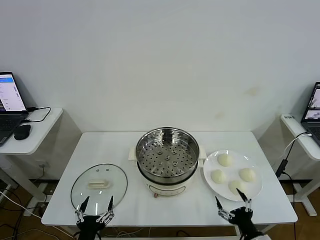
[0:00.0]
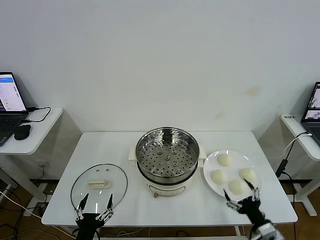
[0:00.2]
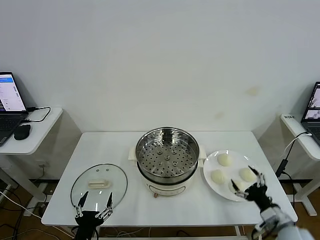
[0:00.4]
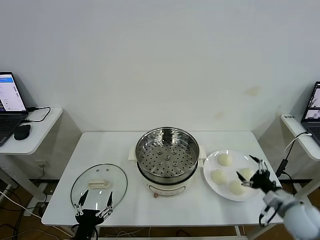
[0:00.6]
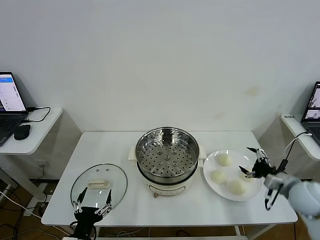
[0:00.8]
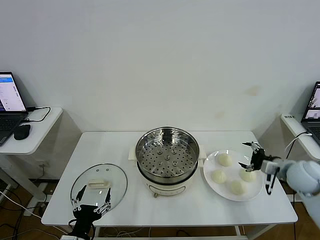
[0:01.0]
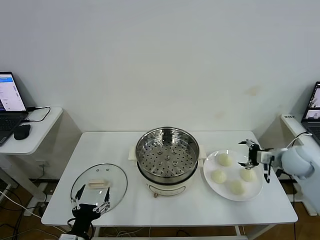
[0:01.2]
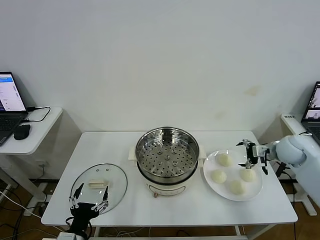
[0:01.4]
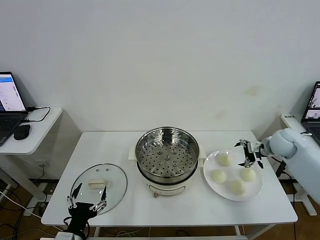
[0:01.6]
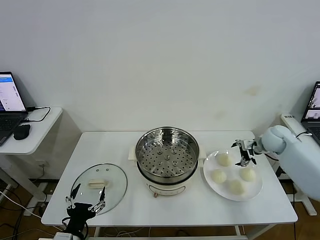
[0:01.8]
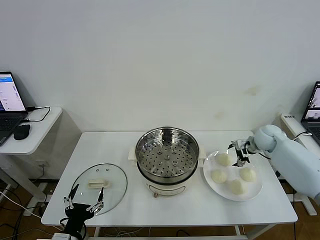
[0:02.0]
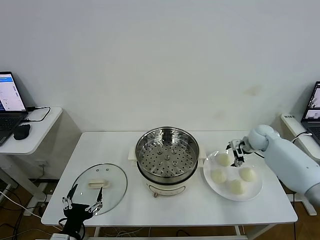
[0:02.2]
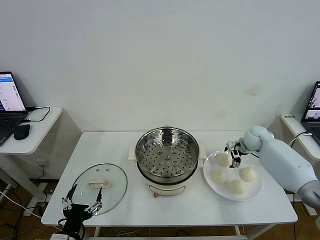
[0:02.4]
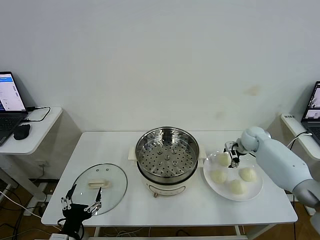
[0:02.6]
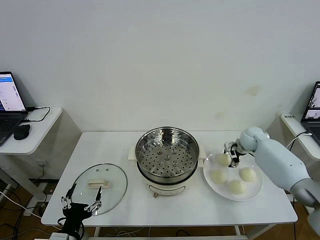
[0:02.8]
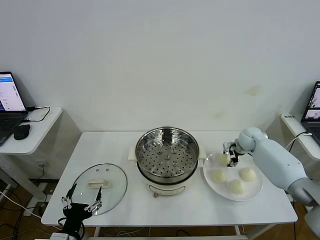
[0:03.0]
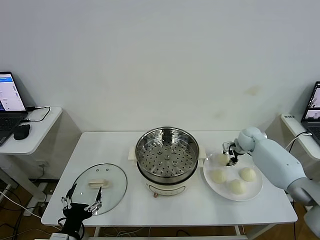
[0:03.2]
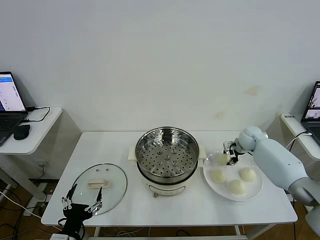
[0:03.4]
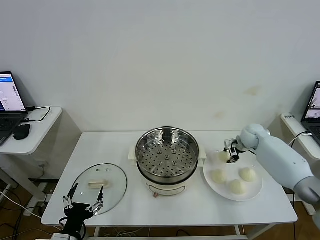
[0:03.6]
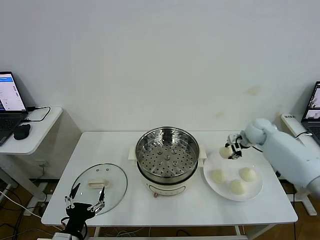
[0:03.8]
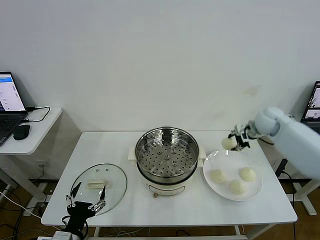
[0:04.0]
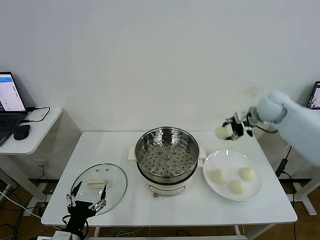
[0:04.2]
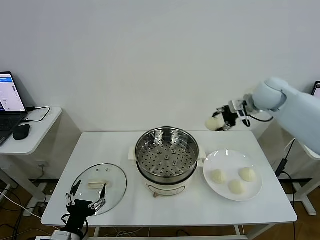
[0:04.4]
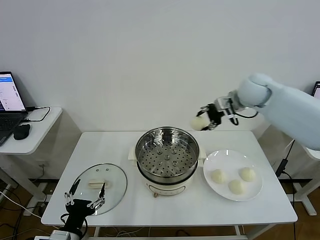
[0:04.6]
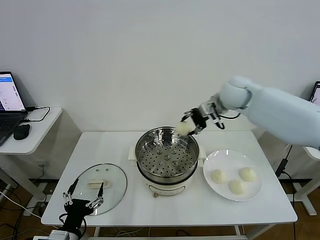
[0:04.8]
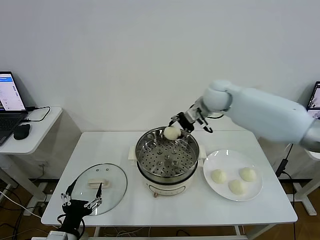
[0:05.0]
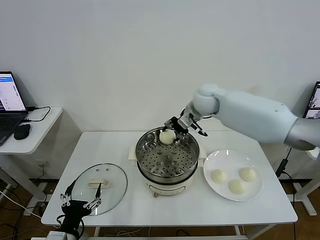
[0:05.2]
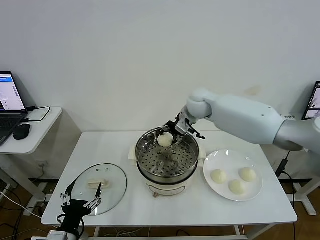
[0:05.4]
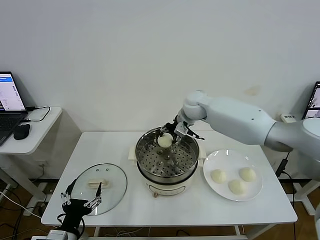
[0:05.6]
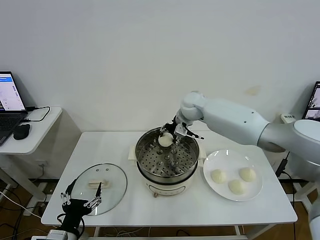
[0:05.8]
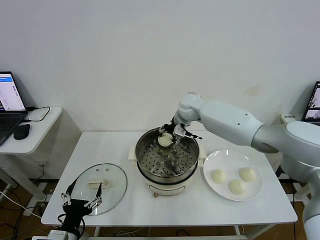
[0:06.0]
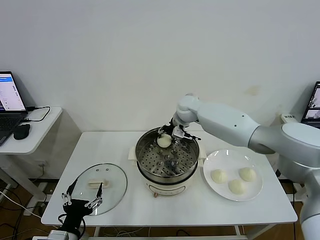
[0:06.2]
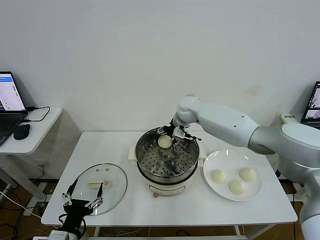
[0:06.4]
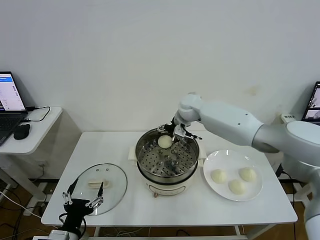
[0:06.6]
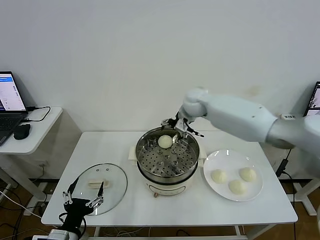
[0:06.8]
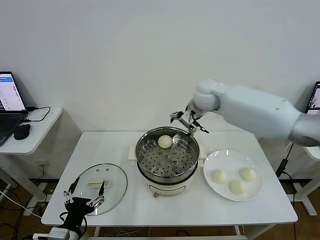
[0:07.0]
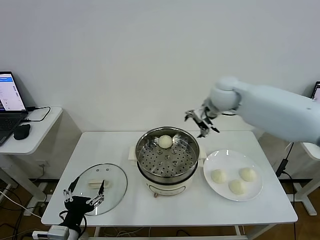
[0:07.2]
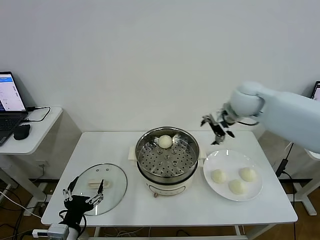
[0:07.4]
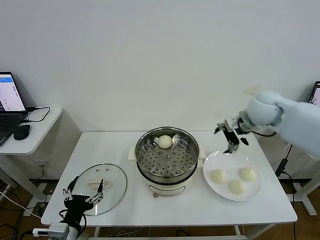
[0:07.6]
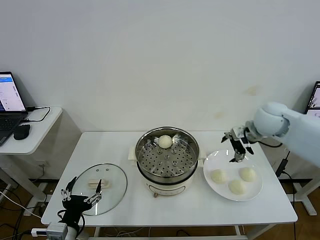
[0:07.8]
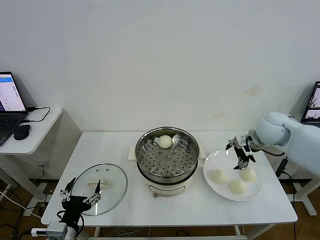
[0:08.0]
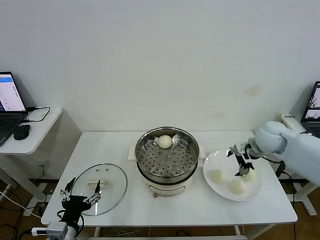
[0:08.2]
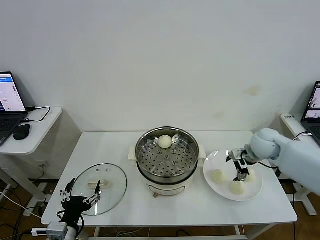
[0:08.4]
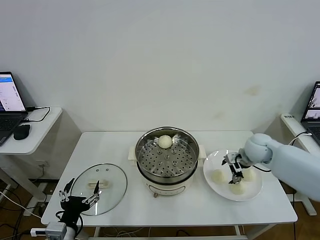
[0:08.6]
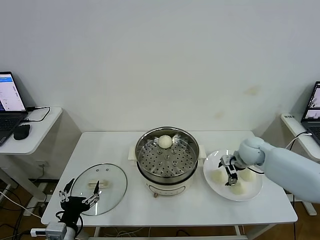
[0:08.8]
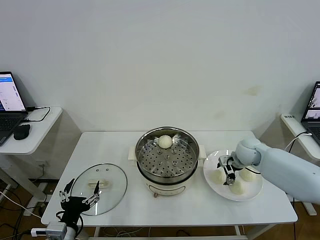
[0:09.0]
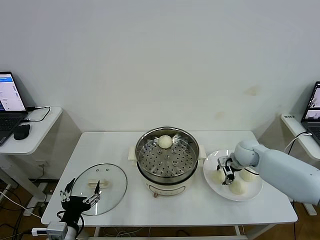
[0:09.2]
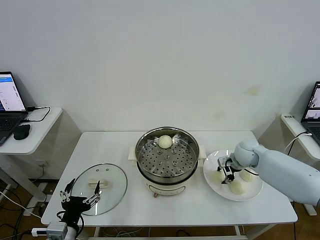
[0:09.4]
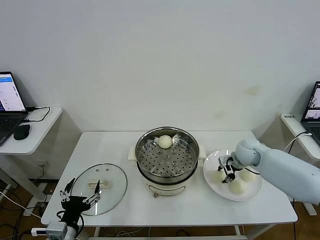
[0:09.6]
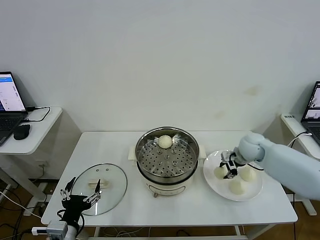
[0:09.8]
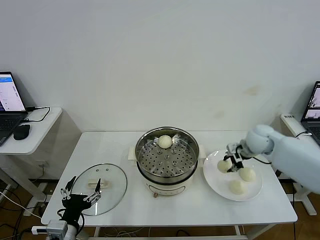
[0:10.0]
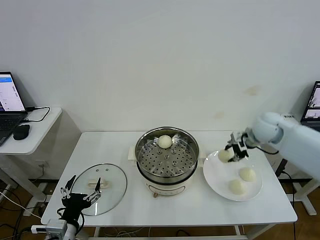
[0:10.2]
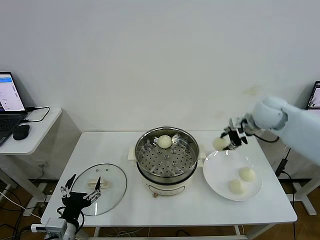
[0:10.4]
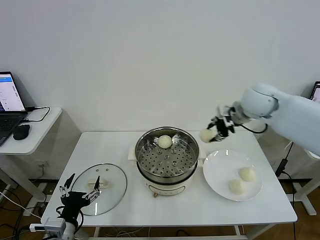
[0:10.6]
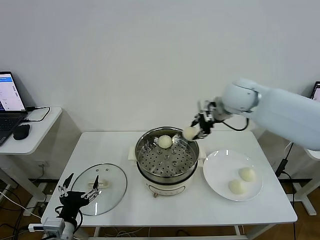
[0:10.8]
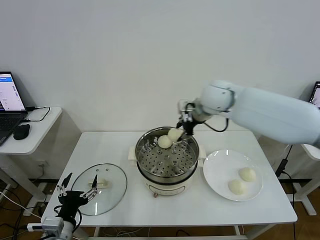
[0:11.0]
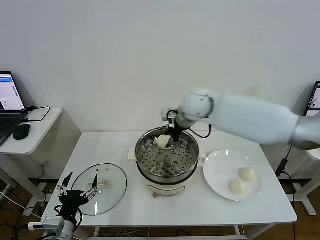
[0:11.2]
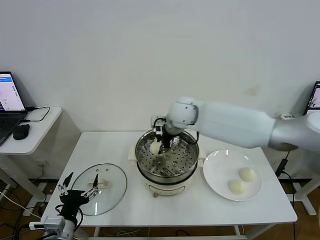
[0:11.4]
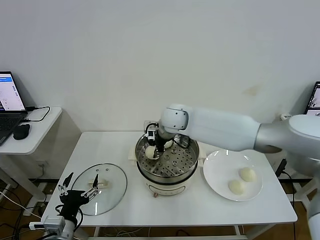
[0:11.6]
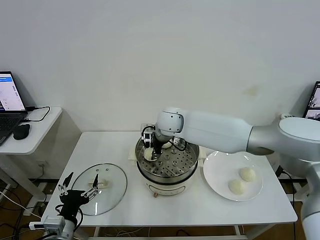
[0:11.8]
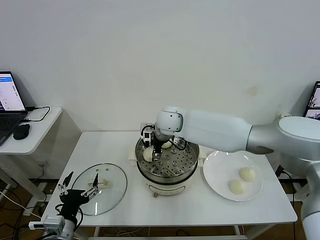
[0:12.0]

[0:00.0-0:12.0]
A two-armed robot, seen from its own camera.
Step, 0:00.0 to 0:03.4: Grasp the baozi in the plate with right gripper.
Step, 0:03.6 to 0:06.8: Place the baozi on the steamer with right gripper.
Step, 0:07.0 to 0:09.4: Grasp the baozi in the plate with right gripper.
0:01.6 to 0:03.0: The right gripper heads downward, forward and to the left, covering approximately 10 cm, and closes.
0:03.0 to 0:04.4: The right gripper is displaced upward by approximately 25 cm.
0:04.4 to 0:06.0: The right gripper moves to the left and downward, about 20 cm.
0:06.0 to 0:07.6: The right gripper goes approximately 25 cm to the right and backward, and opens.
0:07.6 to 0:09.0: The right gripper is displaced downward by about 20 cm.
0:09.0 to 0:10.4: The right gripper travels upward by approximately 20 cm, and closes up.
0:10.4 to 0:12.0: The right gripper travels to the left by roughly 25 cm, and opens.

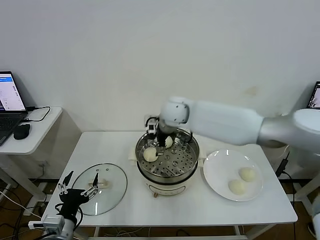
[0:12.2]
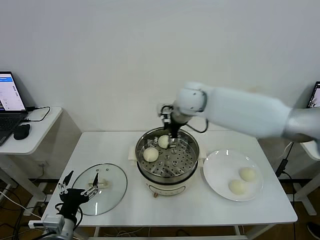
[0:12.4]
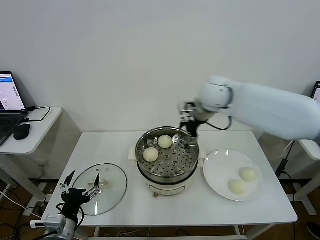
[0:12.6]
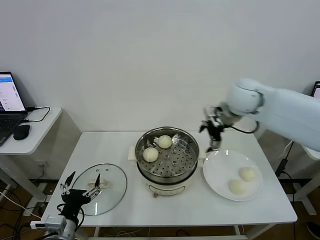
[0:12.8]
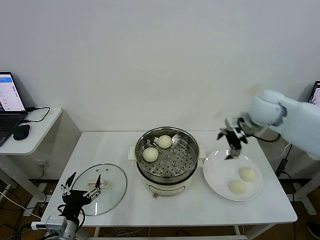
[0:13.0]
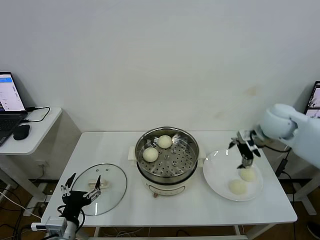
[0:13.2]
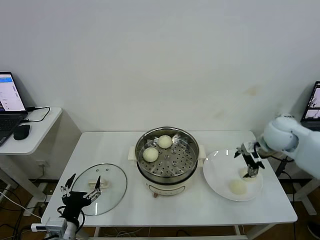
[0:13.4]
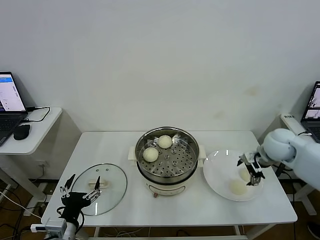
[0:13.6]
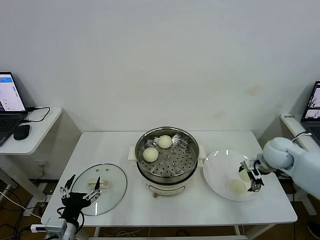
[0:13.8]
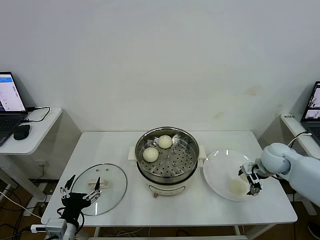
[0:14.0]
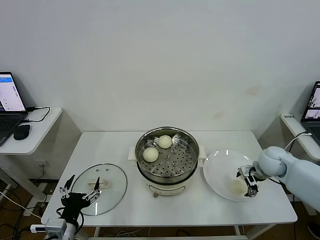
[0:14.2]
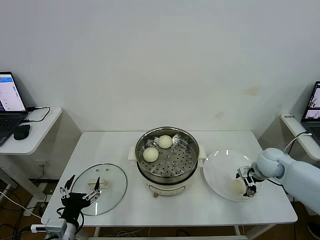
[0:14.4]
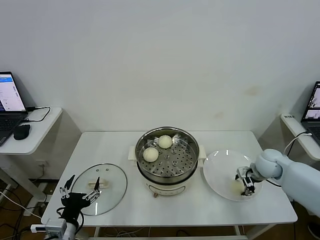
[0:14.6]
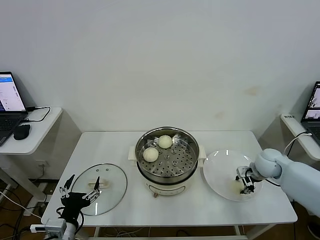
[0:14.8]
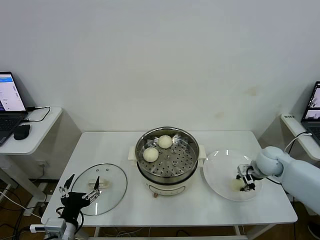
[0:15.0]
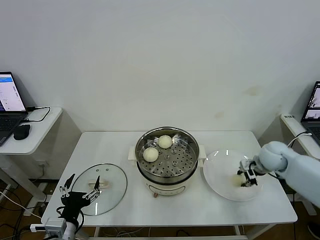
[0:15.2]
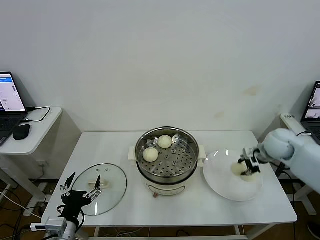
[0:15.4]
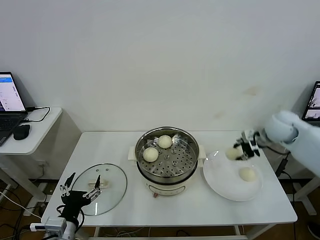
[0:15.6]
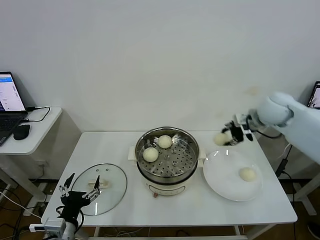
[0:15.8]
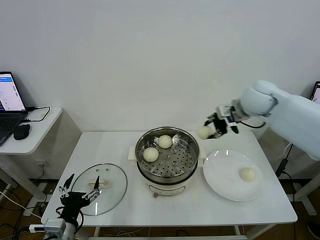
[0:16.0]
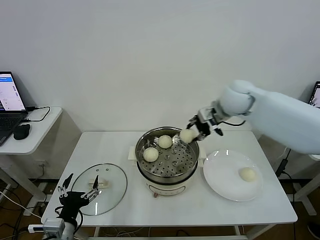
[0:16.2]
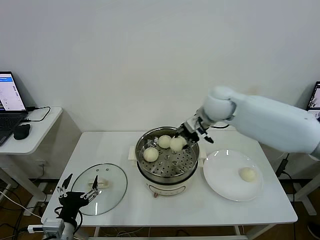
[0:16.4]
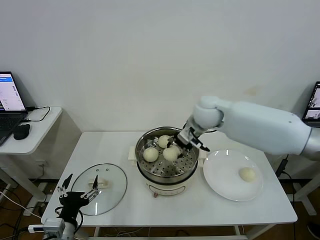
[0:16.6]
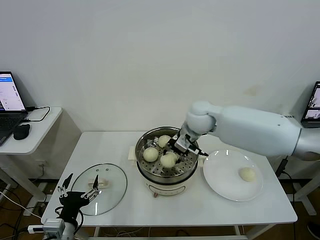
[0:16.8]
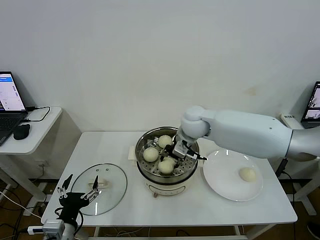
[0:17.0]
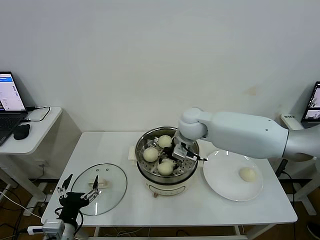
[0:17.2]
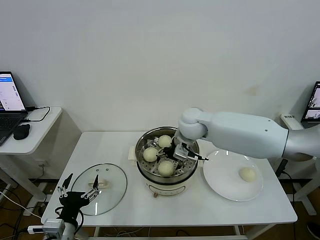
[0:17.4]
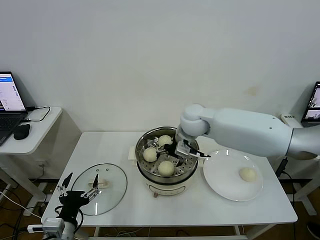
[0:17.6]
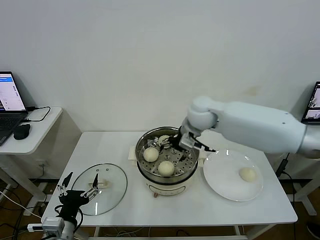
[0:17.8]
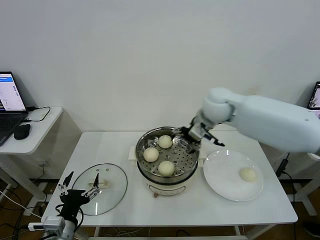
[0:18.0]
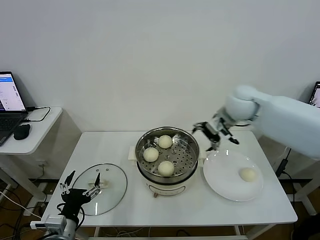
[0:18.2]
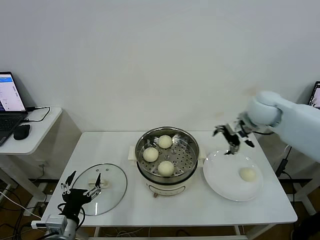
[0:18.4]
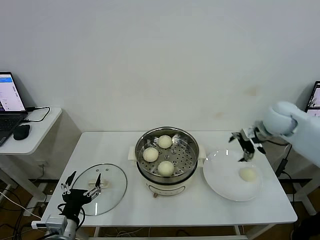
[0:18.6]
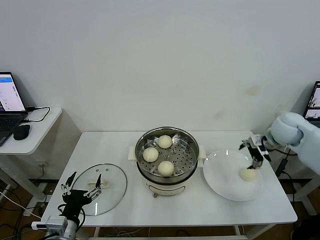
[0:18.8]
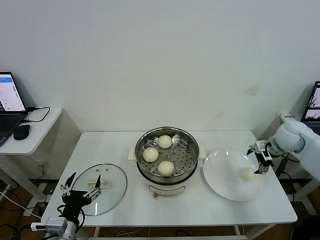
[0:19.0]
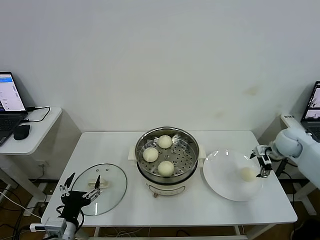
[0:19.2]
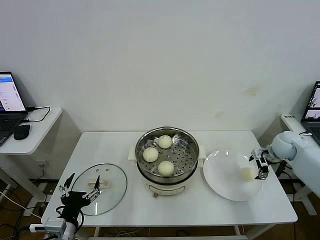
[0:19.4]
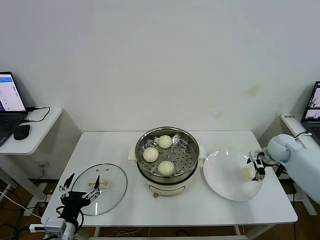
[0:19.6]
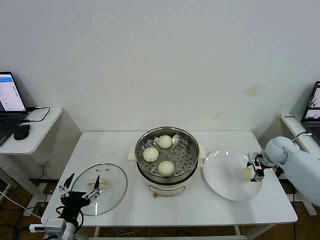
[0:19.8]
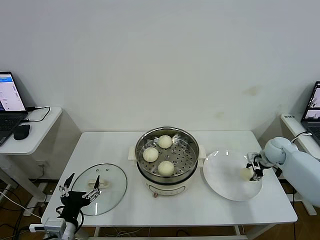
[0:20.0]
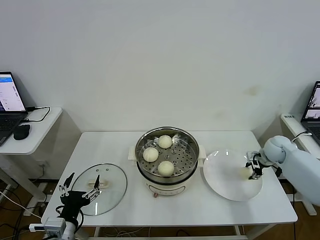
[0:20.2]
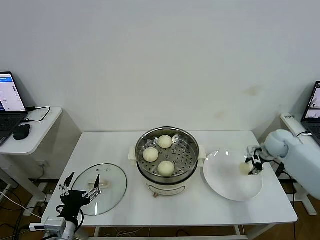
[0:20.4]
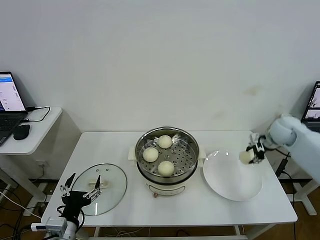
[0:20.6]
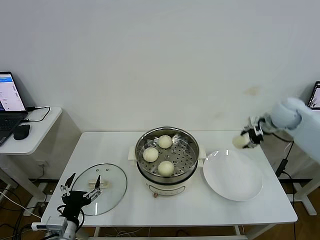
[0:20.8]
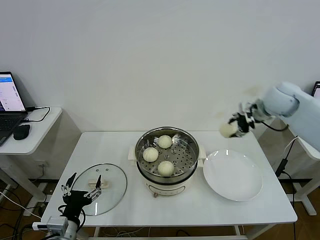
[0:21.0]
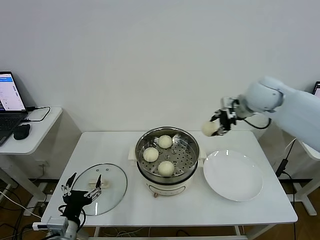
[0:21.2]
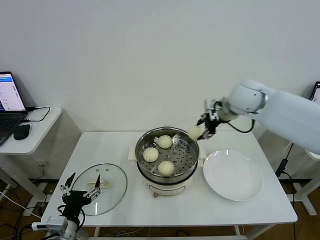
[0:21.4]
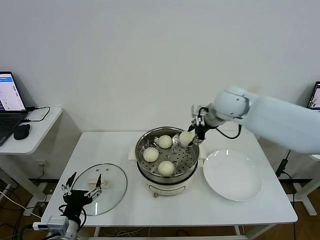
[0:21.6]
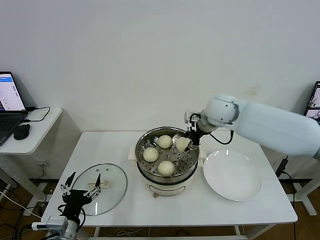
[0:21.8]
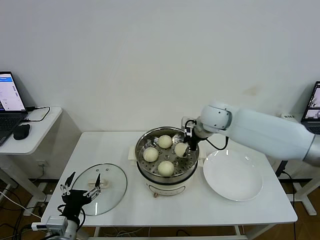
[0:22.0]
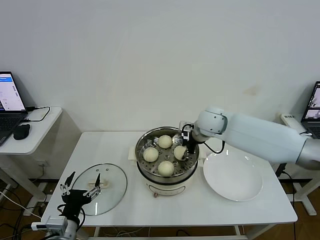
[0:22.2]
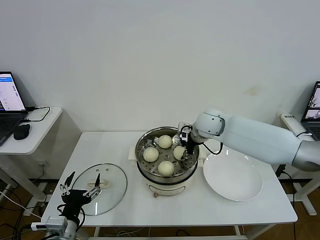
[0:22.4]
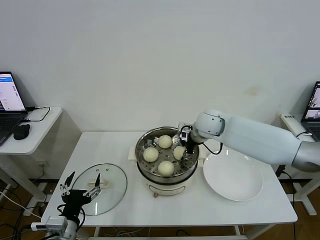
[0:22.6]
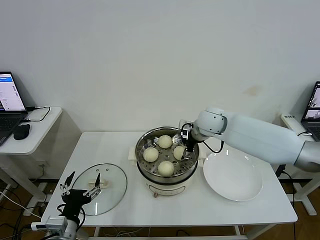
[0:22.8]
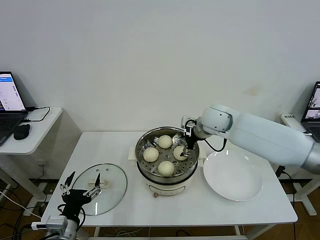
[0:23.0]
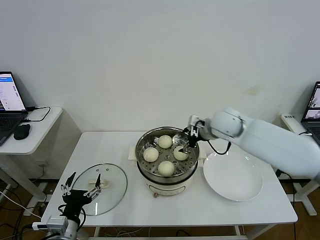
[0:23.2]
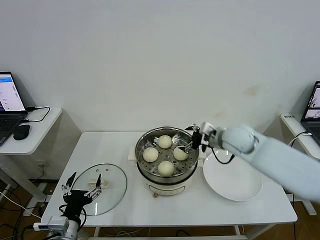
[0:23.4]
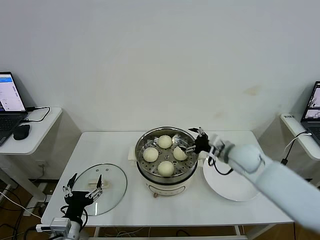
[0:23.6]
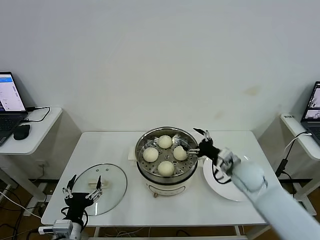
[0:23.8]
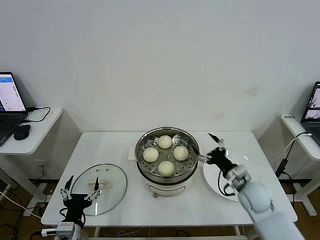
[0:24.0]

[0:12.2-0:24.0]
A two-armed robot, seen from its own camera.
Step, 0:12.4 to 0:14.6: Grasp the baozi in the plate with right gripper.
Step, 0:14.8 to 0:17.6: Place the baozi on the steamer with right gripper.
Step, 0:17.8 to 0:20.0: Grasp the baozi in the plate with right gripper.
Step, 0:20.2 to 0:23.4: Place the baozi on the steamer with right gripper.
0:12.2 to 0:13.6: The right gripper is displaced to the right by approximately 30 cm.
0:13.6 to 0:15.2: The right gripper closes up.
0:15.2 to 0:16.6: The right gripper heads to the left and upward, covering some 30 cm.
0:16.6 to 0:18.2: The right gripper moves to the right, about 10 cm, and opens.
0:18.2 to 0:19.6: The right gripper is displaced downward and to the right by some 25 cm.
0:19.6 to 0:21.0: The right gripper shifts about 25 cm upward and to the left, and closes up.
0:21.0 to 0:22.6: The right gripper goes some 20 cm to the left and downward, and opens.
0:22.6 to 0:24.0: The right gripper is displaced backward, downward and to the right by some 30 cm, and opens.
